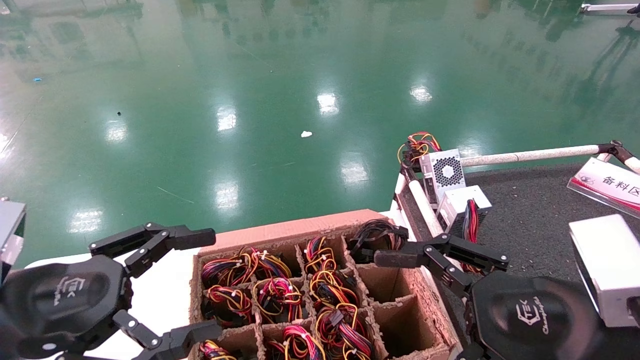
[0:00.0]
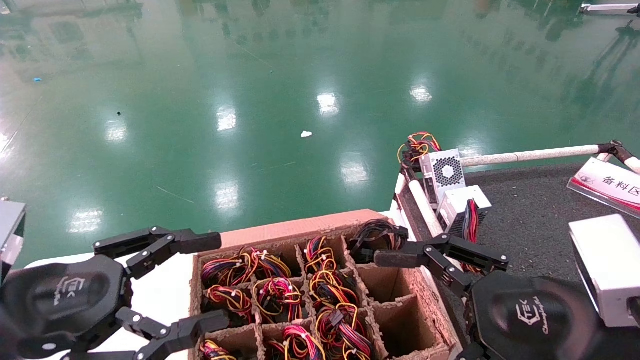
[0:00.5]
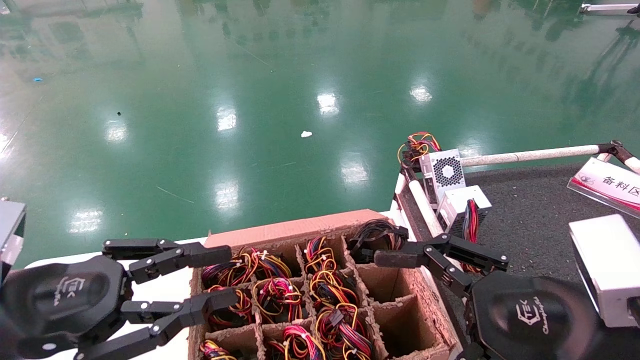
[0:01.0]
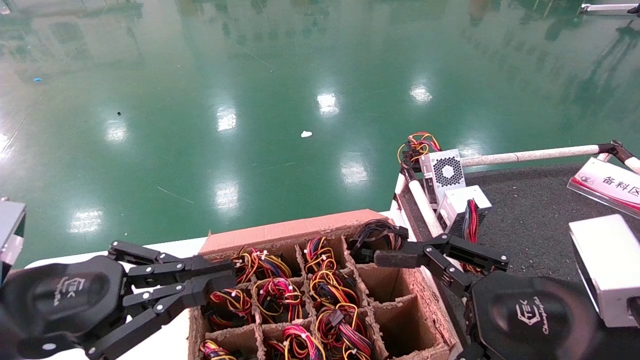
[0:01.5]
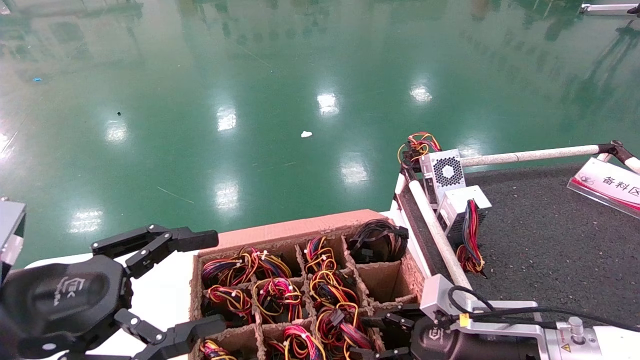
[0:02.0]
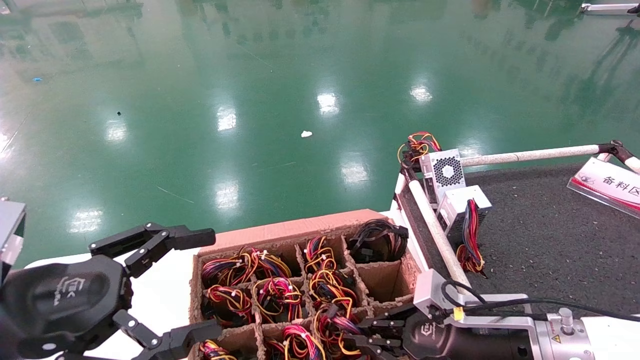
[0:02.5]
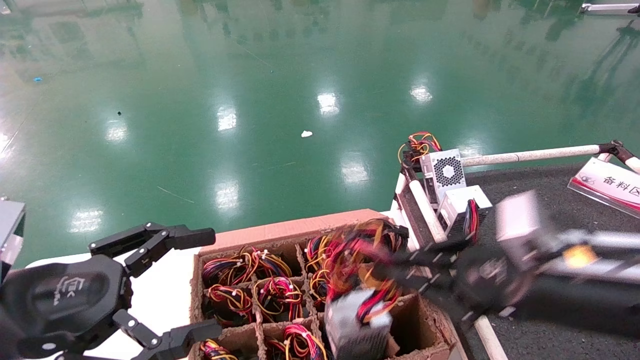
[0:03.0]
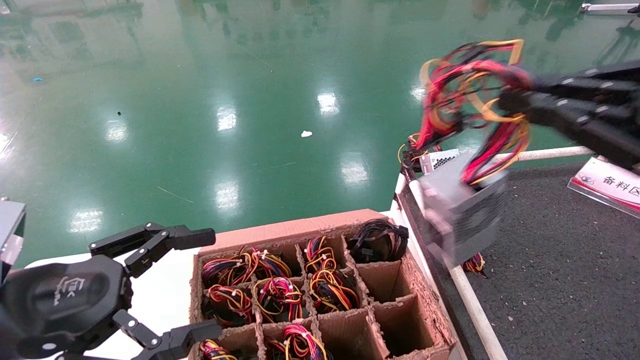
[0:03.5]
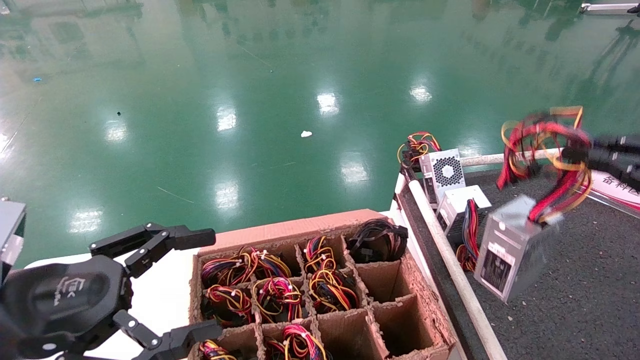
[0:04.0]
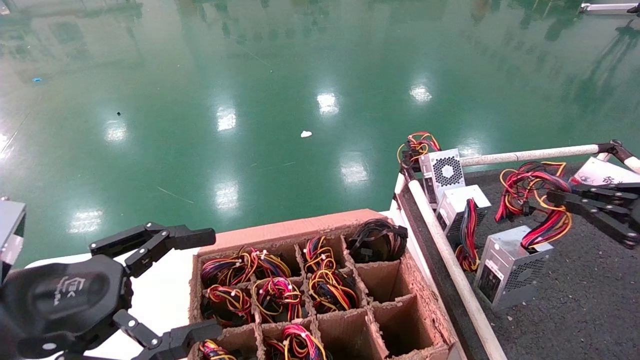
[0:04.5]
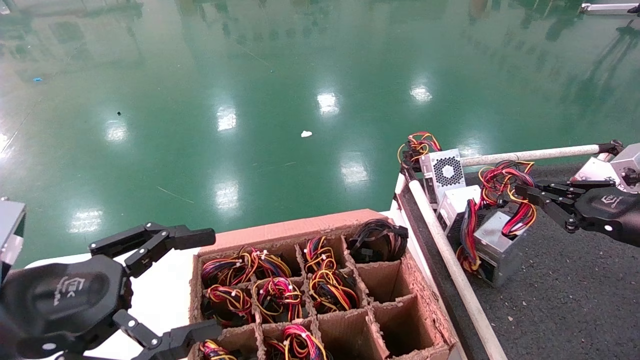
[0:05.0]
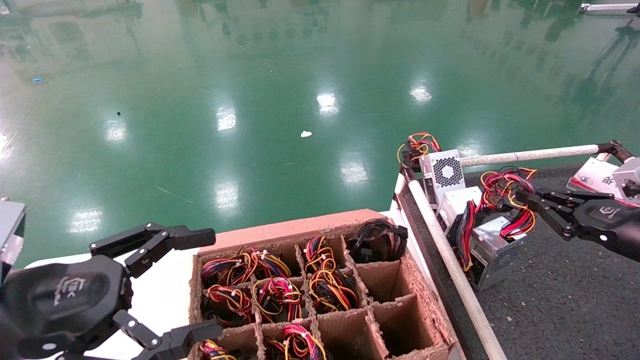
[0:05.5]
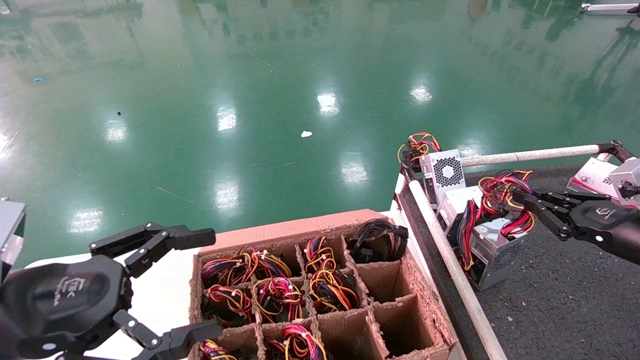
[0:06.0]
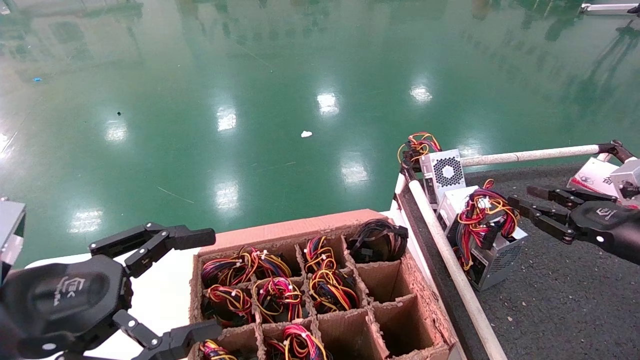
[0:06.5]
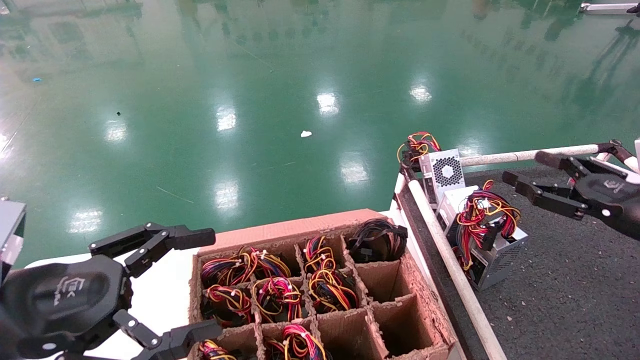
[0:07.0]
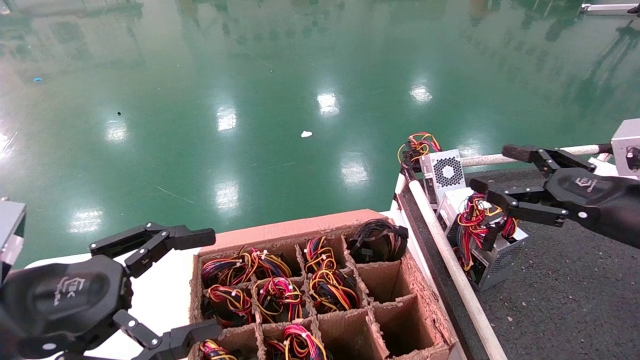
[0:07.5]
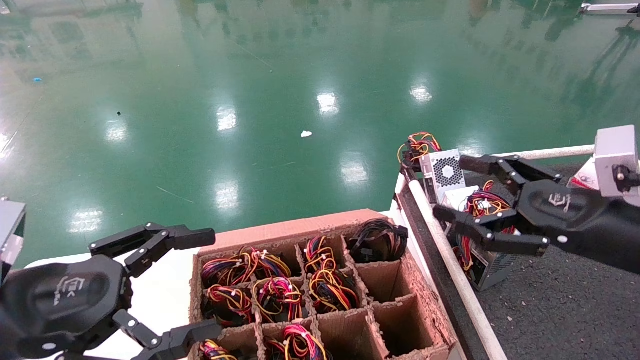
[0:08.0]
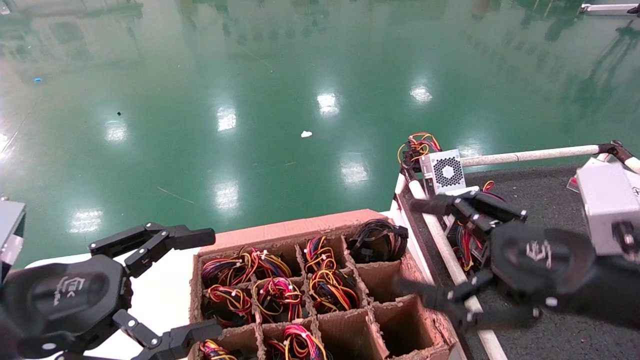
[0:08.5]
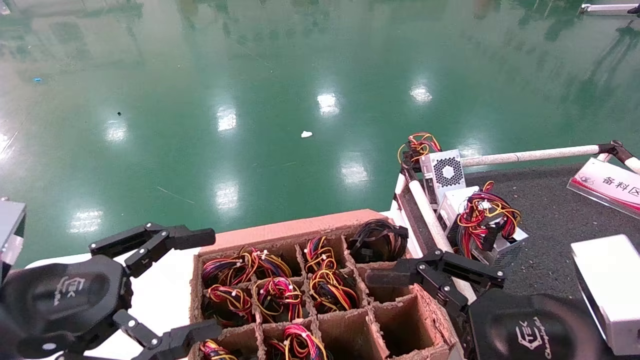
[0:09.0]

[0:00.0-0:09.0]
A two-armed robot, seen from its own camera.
Step, 0:02.5 to 0:04.0: Grab and lift the power supply from the large box.
Step, 0:04.5 to 0:07.0: Place the power supply on the operating table.
0:00.0 to 0:02.0: The left gripper closes up.
0:02.0 to 0:04.5: The left gripper opens its fingers, while the right gripper shifts roughly 10 cm upward and to the right, and closes its fingers.
0:04.5 to 0:07.0: The right gripper moves to the right, forward and downward, roughly 20 cm.
0:07.0 to 0:09.0: The right gripper travels to the left by about 5 cm, and opens its fingers.

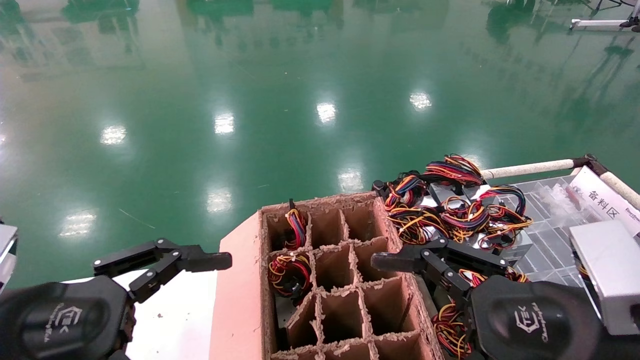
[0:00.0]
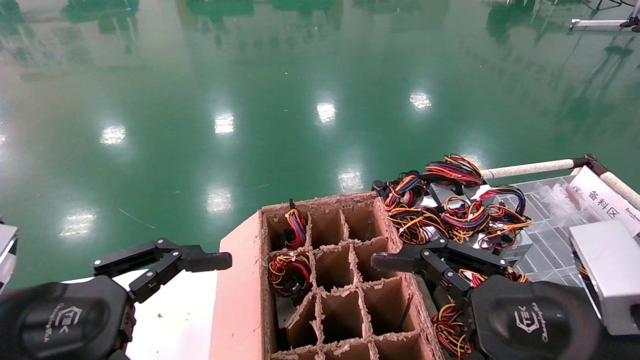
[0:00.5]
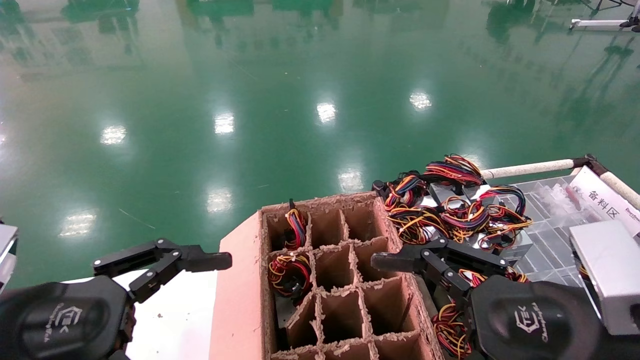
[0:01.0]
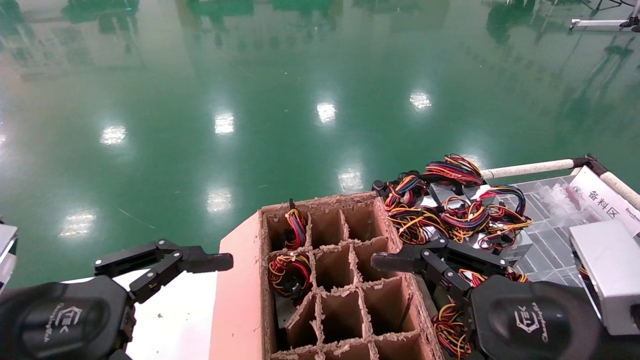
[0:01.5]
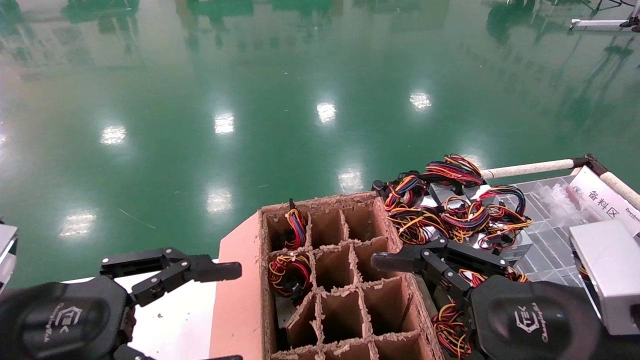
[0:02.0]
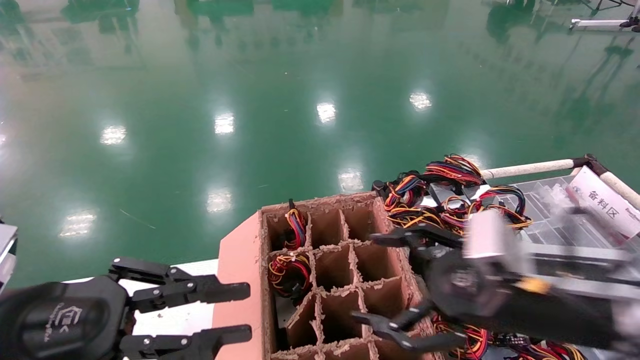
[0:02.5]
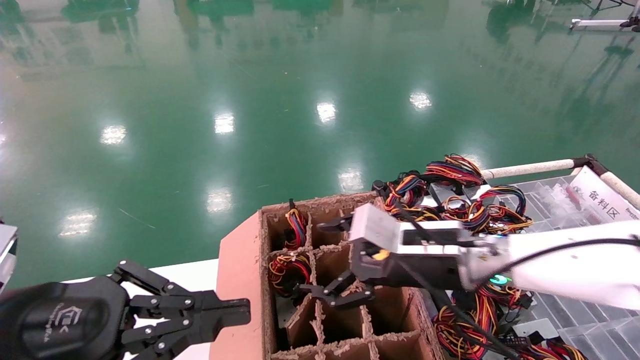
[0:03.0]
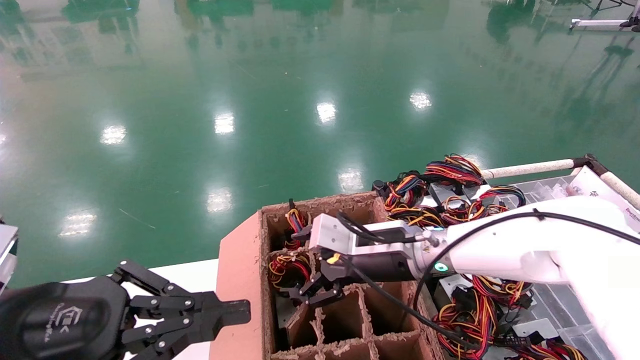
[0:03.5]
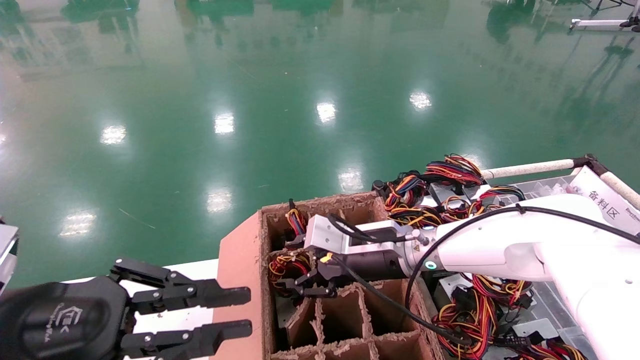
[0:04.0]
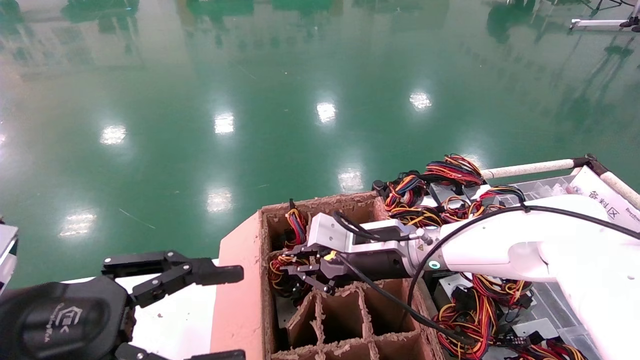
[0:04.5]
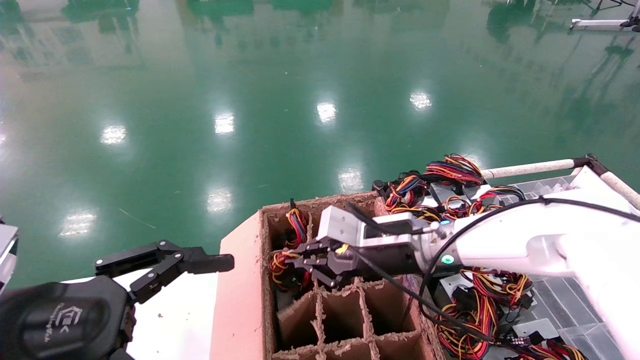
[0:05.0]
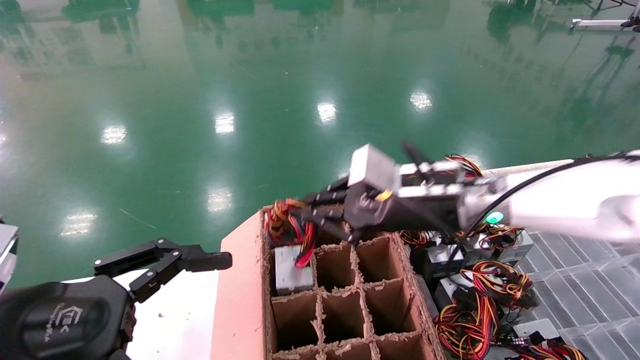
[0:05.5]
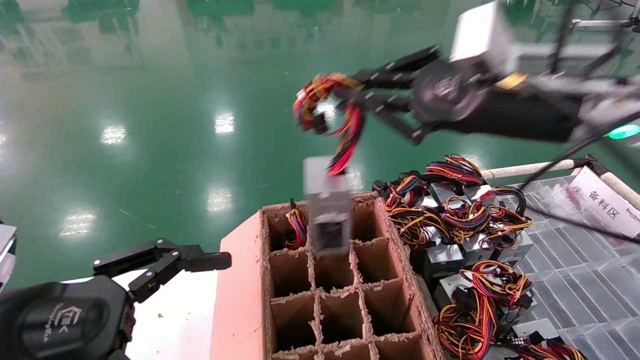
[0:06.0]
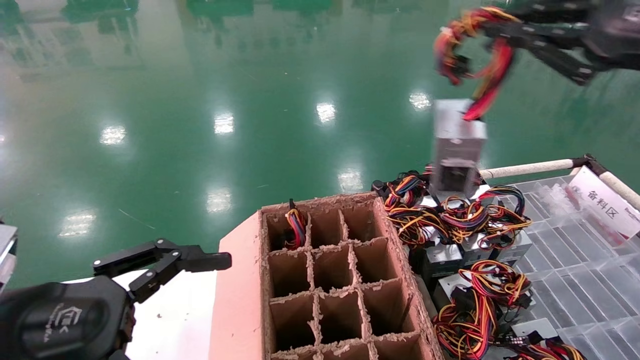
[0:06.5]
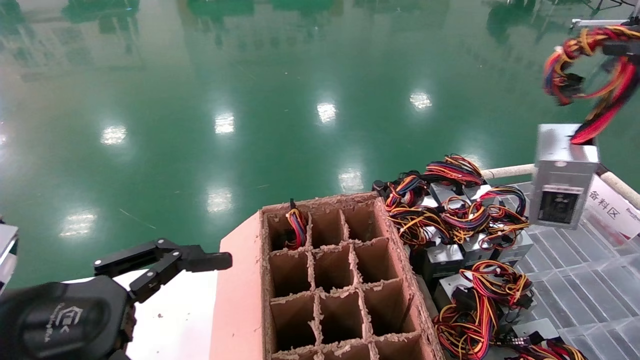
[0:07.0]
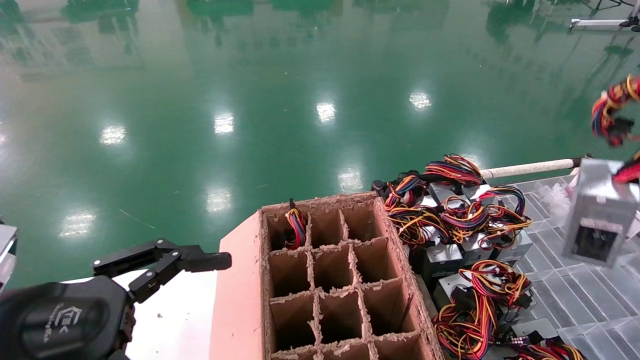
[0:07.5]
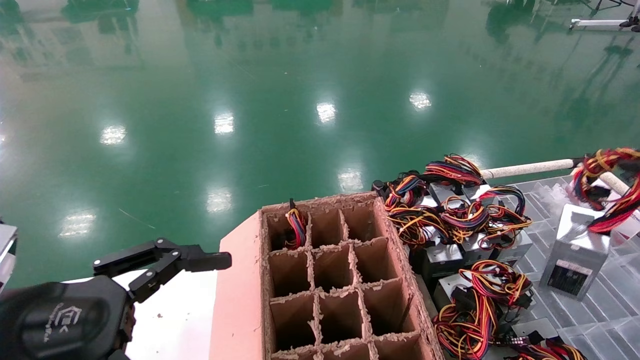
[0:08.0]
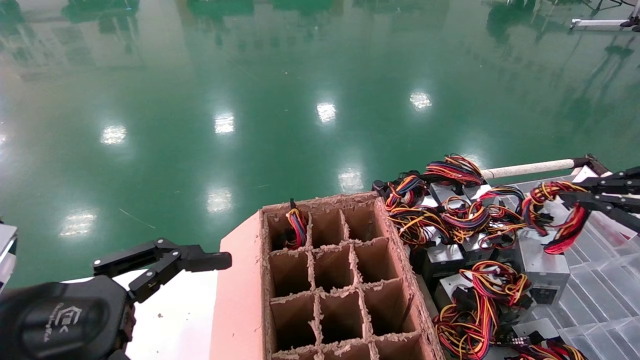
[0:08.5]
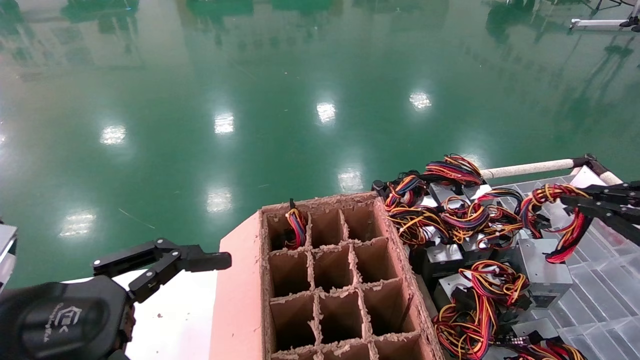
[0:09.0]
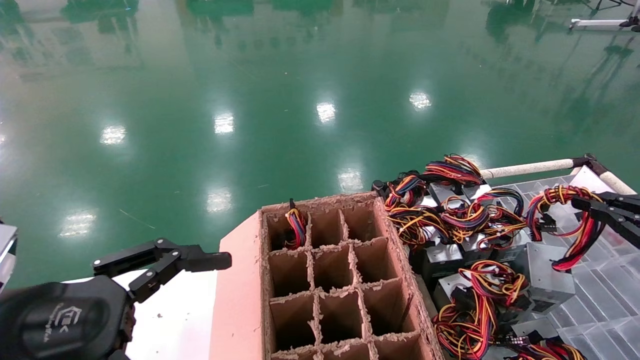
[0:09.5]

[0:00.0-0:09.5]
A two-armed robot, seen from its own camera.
Step, 0:03.5 to 0:05.0: Grab and lift the power supply from the large box.
0:00.0 to 0:02.0: Both grippers stay put.
0:02.0 to 0:04.0: The right gripper moves forward and to the left, about 25 cm, while the left gripper closes.
0:04.0 to 0:05.5: The left gripper opens; the right gripper shifts roughly 10 cm upward and to the right, and closes up.
0:05.5 to 0:07.5: The right gripper shifts roughly 40 cm to the right and backward.
0:07.5 to 0:09.5: The right gripper heads downward and forward, covering approximately 20 cm.

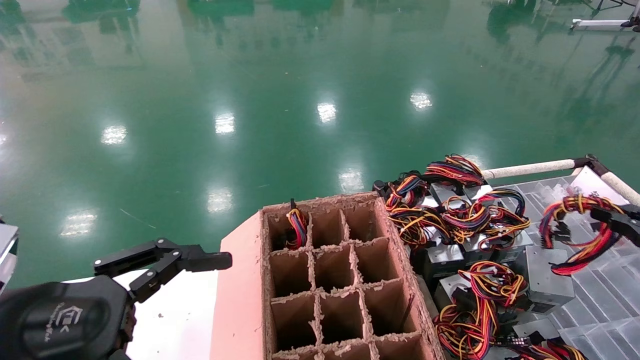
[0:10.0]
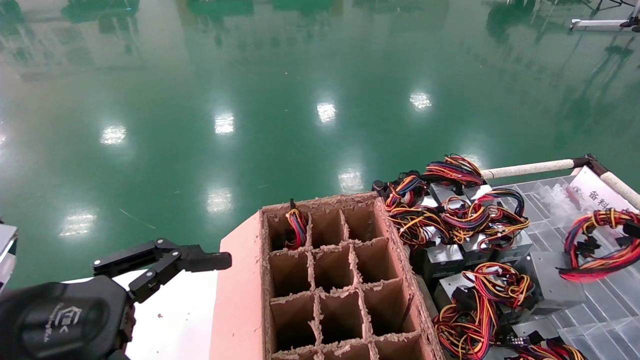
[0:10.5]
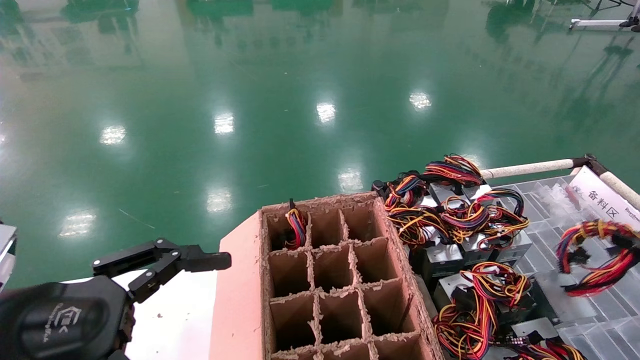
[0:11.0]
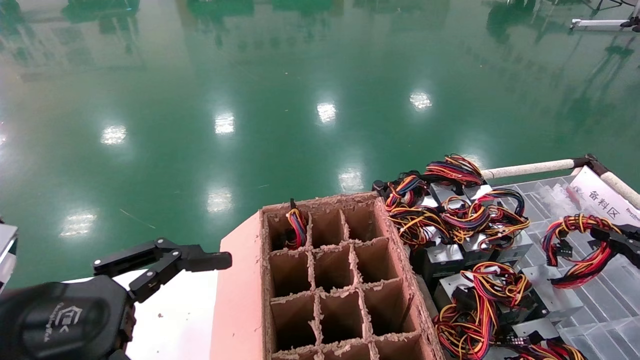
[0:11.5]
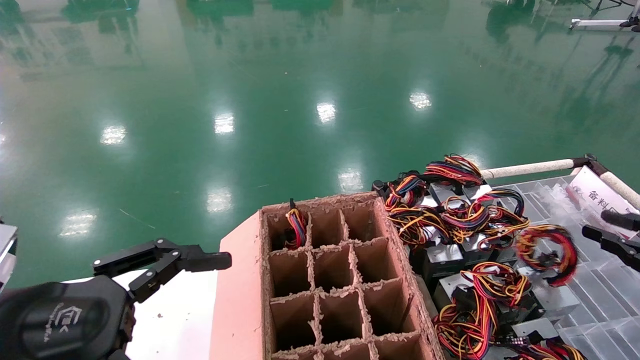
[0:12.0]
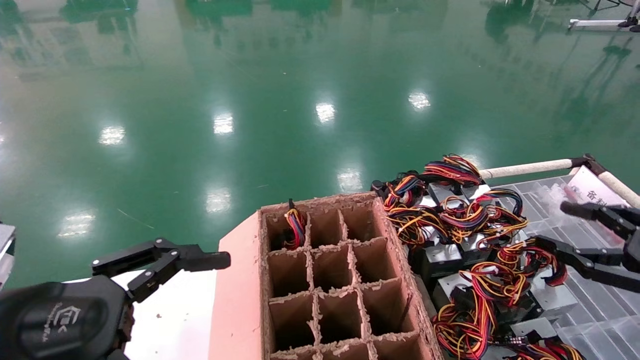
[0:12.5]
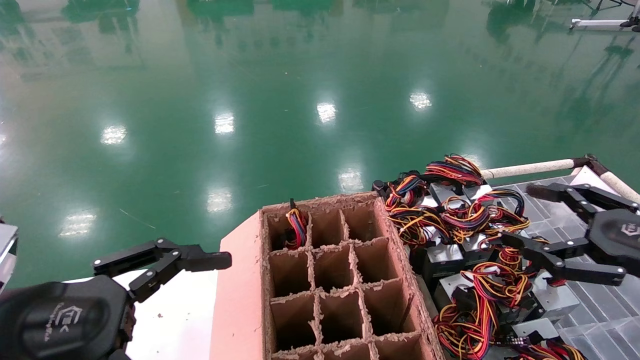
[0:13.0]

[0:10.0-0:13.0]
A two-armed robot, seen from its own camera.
0:10.0 to 0:11.5: There are only small adjustments of the grippers.
0:11.5 to 0:13.0: The right gripper shifts roughly 10 cm to the left and upward, and opens its fingers.
